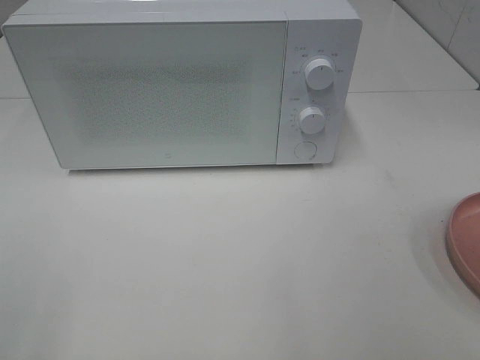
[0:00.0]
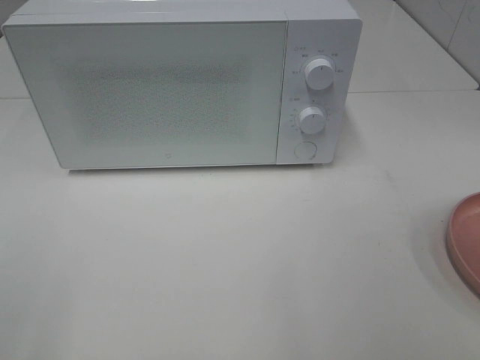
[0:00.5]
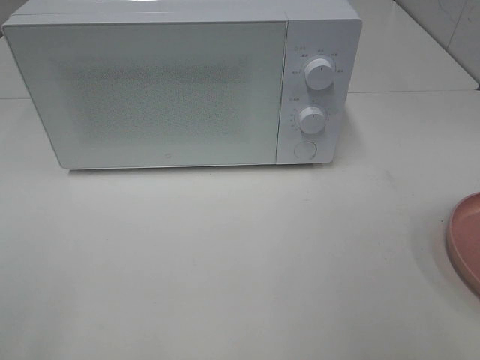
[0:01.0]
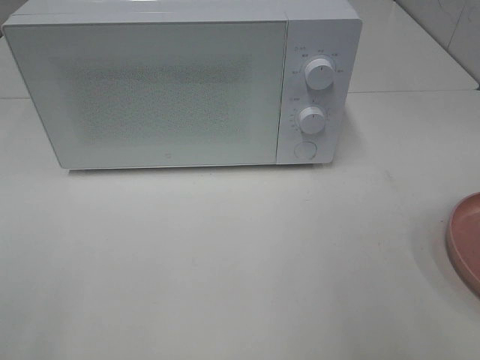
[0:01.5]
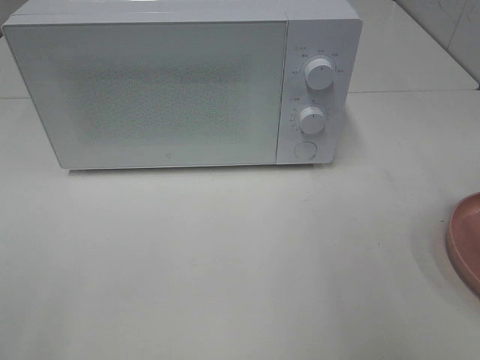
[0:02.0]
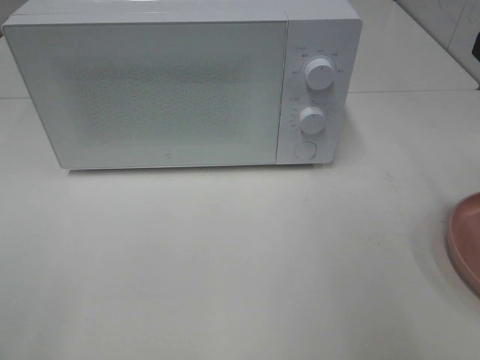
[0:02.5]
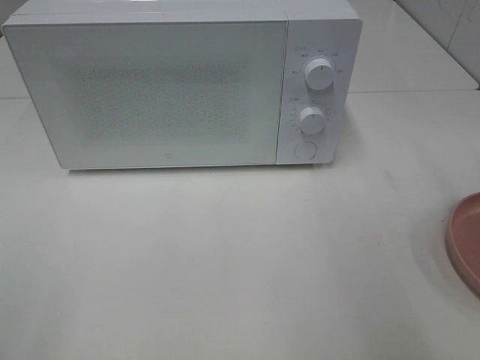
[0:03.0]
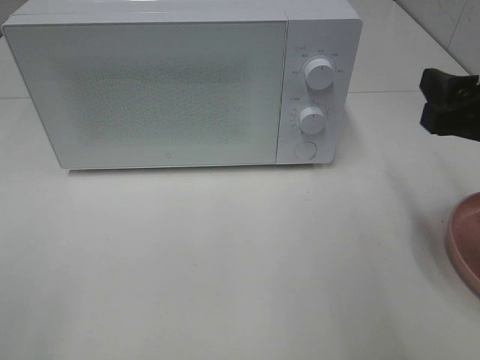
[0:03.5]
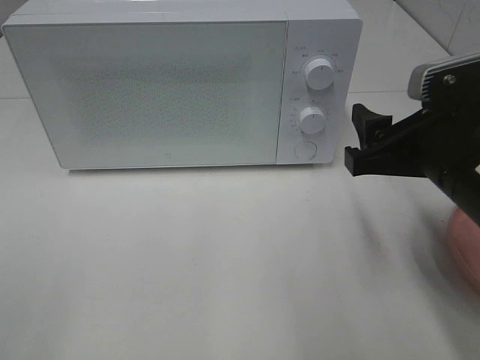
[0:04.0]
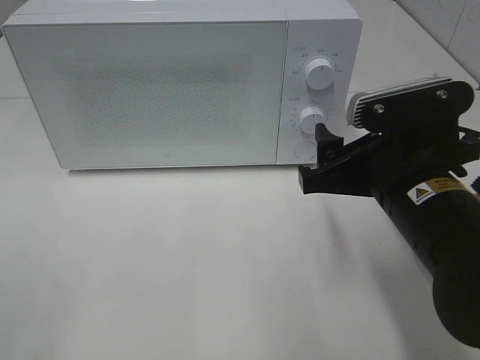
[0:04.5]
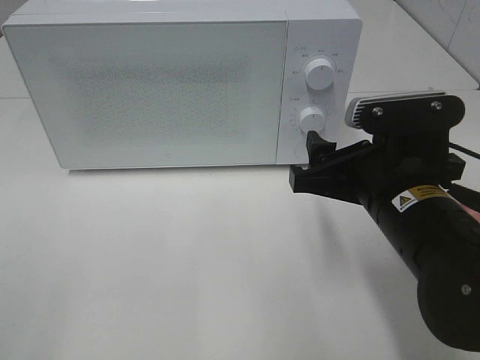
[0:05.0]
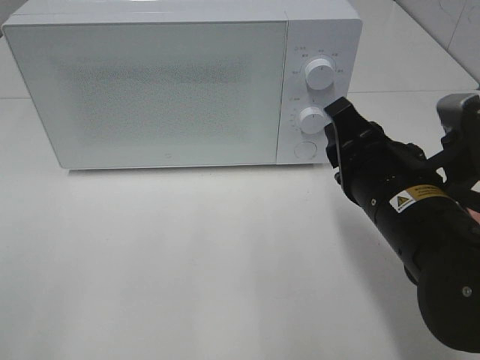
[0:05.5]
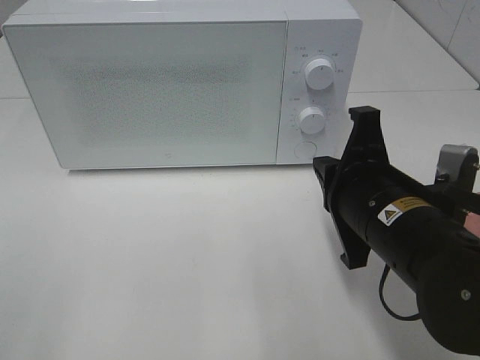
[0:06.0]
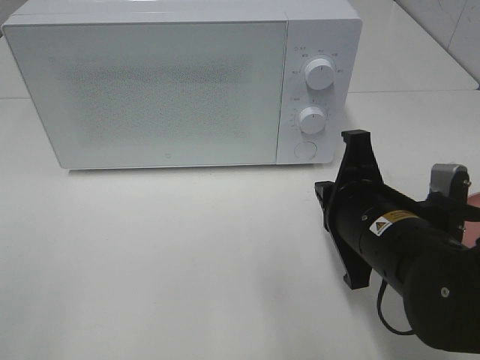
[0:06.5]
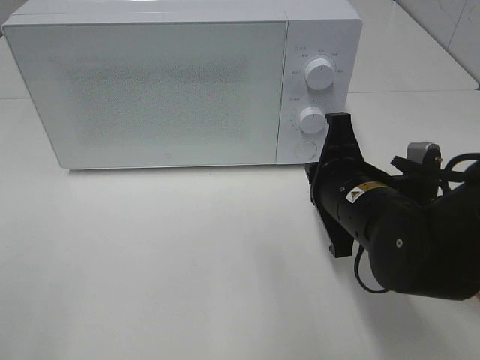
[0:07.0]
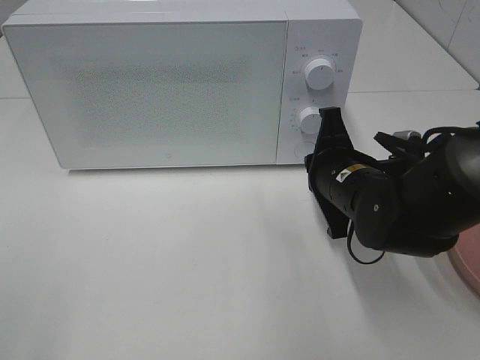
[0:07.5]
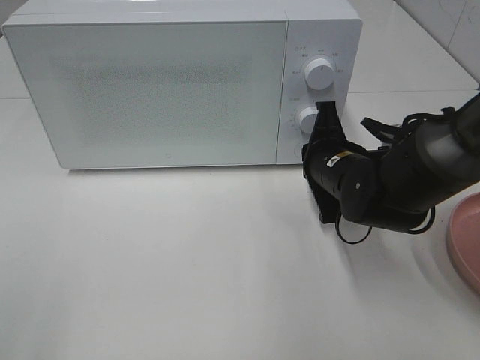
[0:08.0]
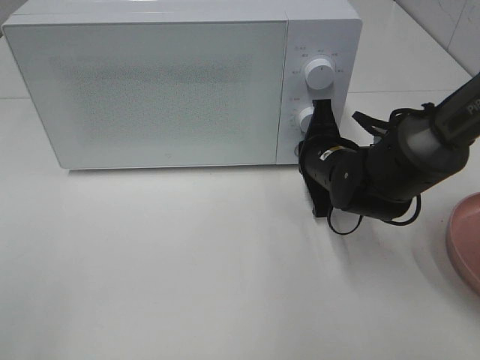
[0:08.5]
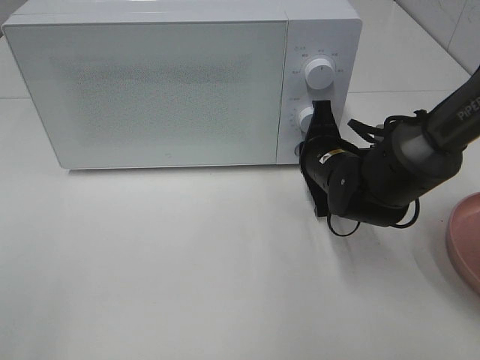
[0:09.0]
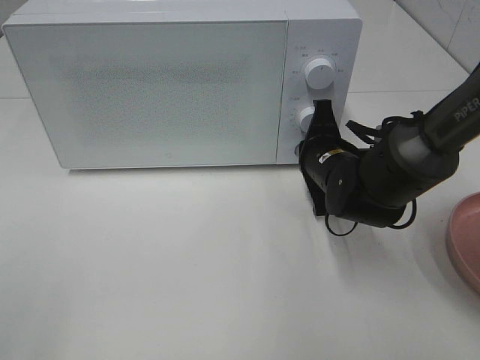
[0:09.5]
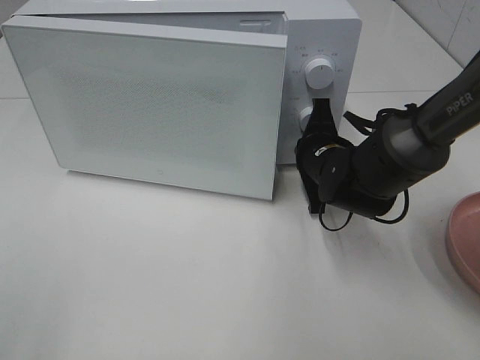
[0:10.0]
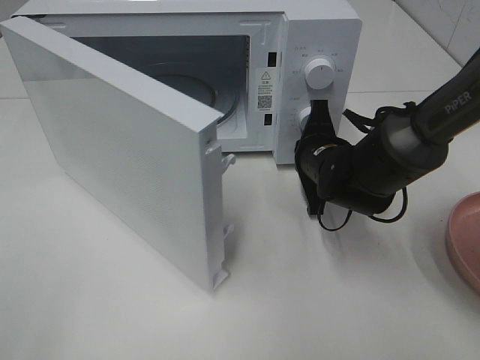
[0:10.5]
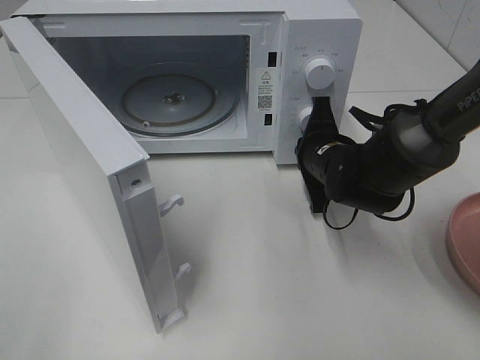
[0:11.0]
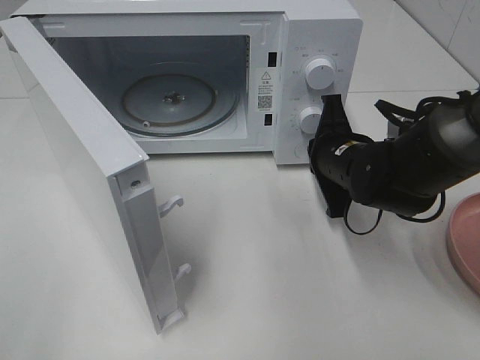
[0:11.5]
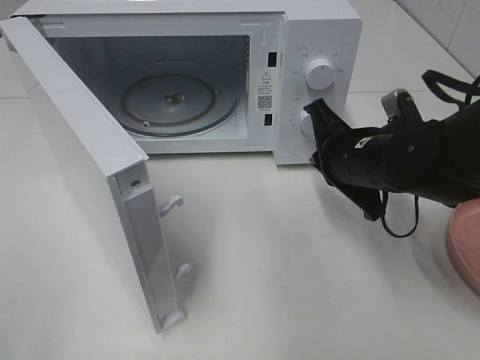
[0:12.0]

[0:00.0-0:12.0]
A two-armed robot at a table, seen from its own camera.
Task of the whole recording: Heat the burger.
Step, 0:00.0 to 0:11.0: Right hand: press the switch.
0:02.0 to 0:04.0: The right gripper goes roughly 15 cm downward and to the left.
0:04.0 to 0:06.0: The right gripper is displaced to the left by roughly 5 cm, and closes.
0:06.0 to 0:08.0: The right gripper shifts roughly 15 cm forward and downward.
0:08.0 to 0:10.0: The grippers stay close to where they were, moving slightly.
0:10.0 to 0:12.0: The right gripper moves backward, roughly 5 cm.

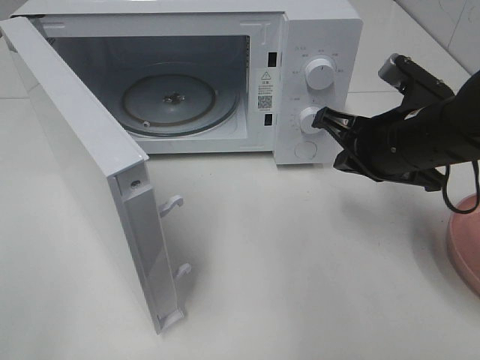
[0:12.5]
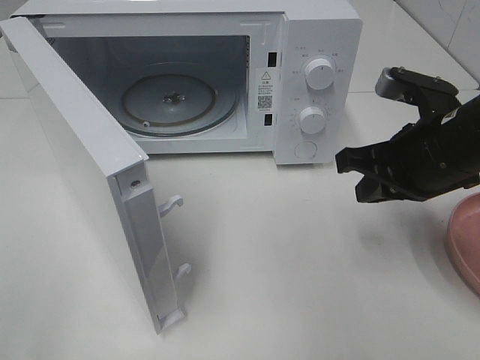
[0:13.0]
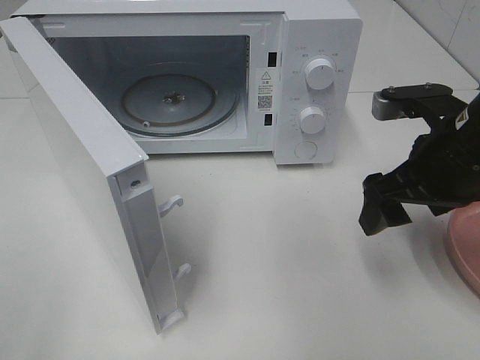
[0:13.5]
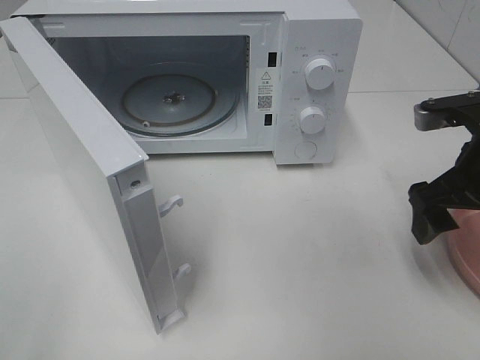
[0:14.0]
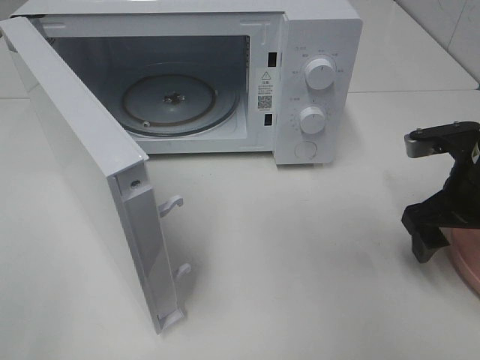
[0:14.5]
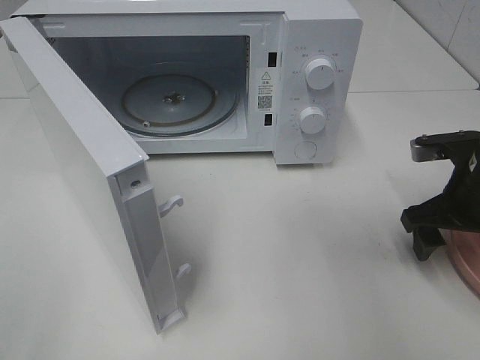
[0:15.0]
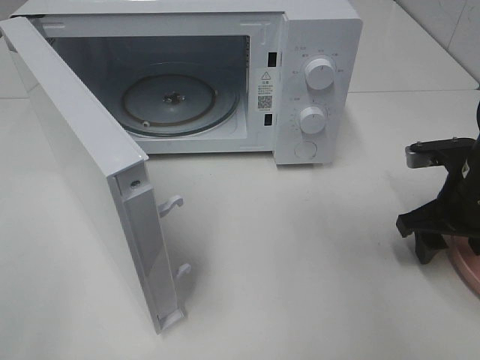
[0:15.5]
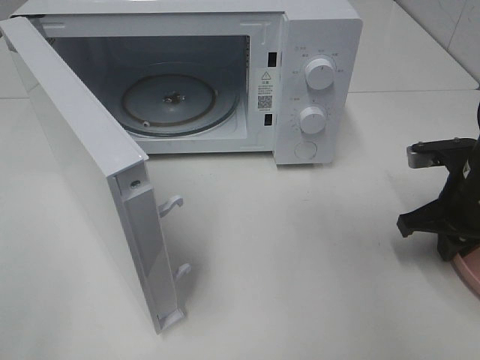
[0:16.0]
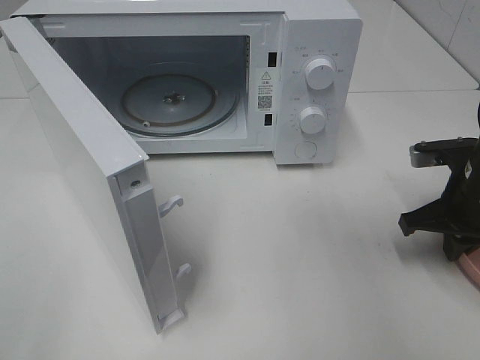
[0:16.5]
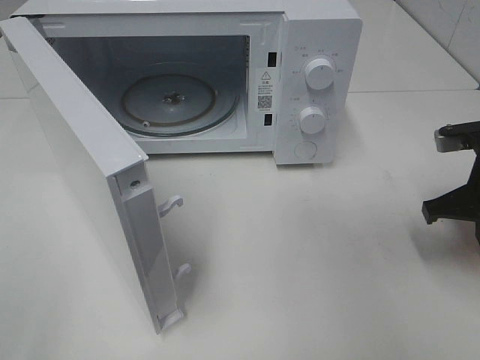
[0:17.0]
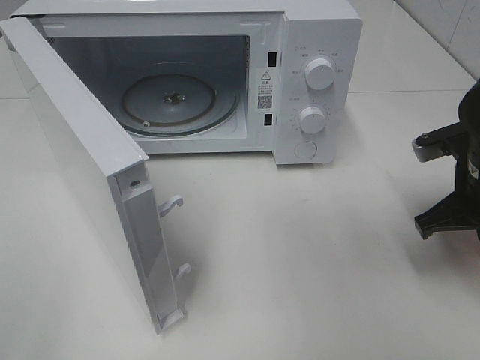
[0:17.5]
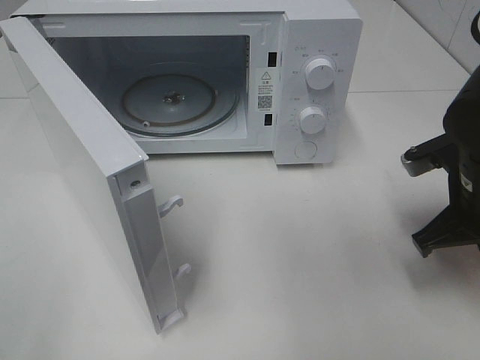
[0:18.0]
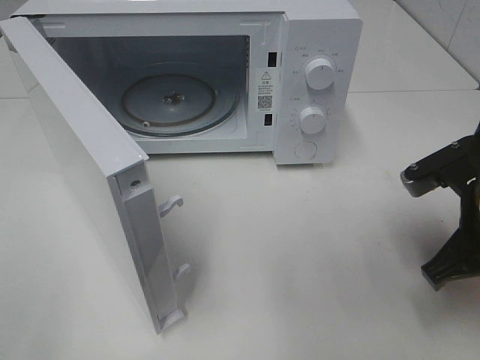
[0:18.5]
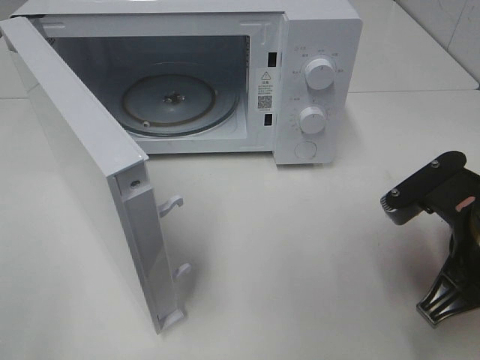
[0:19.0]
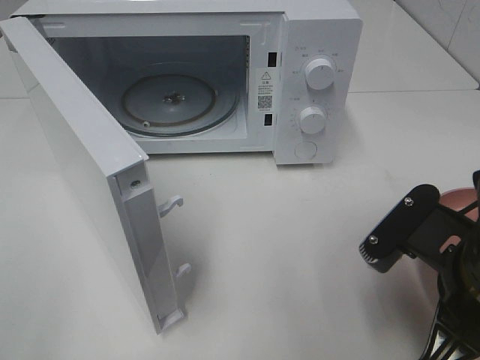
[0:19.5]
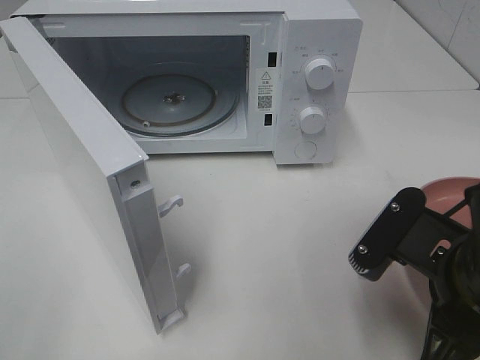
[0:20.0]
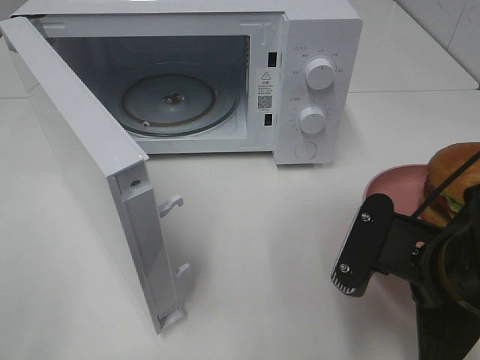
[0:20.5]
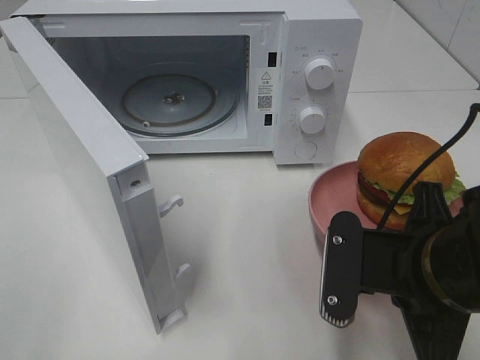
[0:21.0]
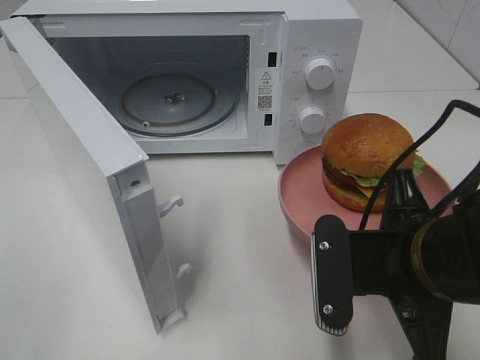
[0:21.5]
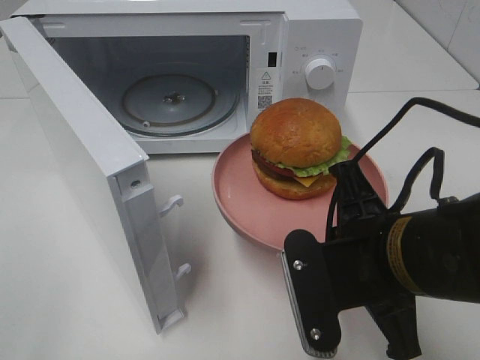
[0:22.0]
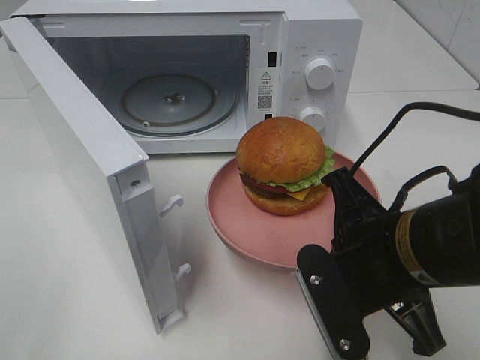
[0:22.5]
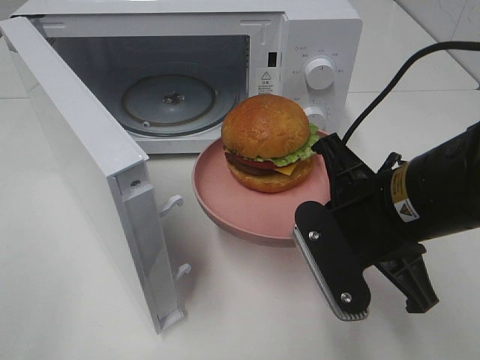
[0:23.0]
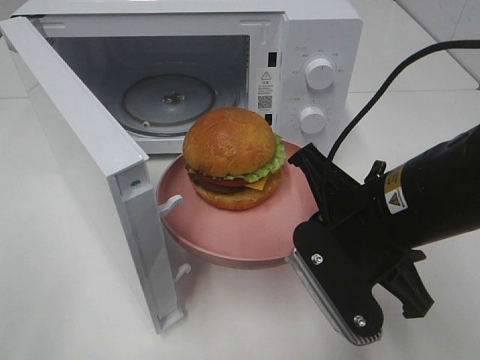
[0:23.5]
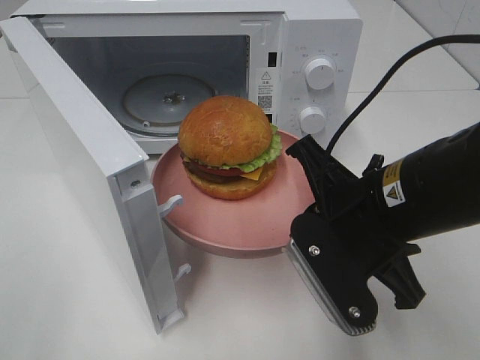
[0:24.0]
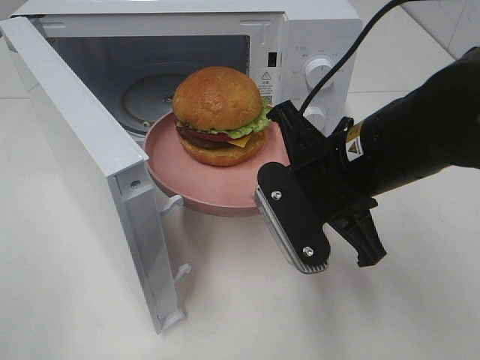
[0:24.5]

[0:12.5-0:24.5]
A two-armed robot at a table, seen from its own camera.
Task of the whole recording: Heat the burger.
Step, 0:12.5 to 0:16.5: Right hand: grab the plate with the hamburger.
0:12.5 to 0:14.5: The right gripper heads to the right, covering roughly 5 cm, and opens its fingers.
0:14.5 to 0:16.5: The right gripper closes its fingers.
0:16.5 to 0:18.5: The right gripper moves backward and to the left, about 10 cm.
0:18.5 to 0:20.5: The right gripper is displaced backward and to the left by approximately 10 cm.
0:22.5 to 0:24.5: The right gripper travels forward by roughly 5 cm.

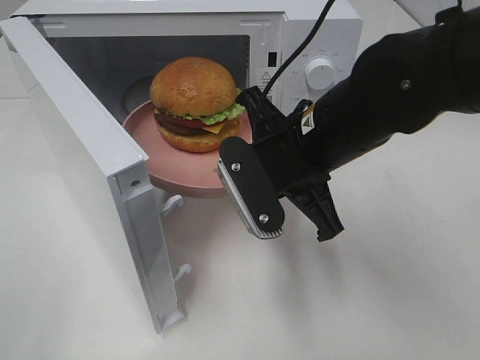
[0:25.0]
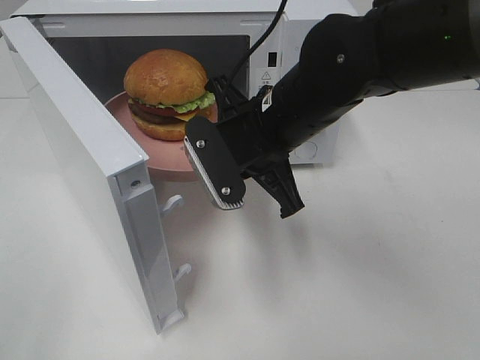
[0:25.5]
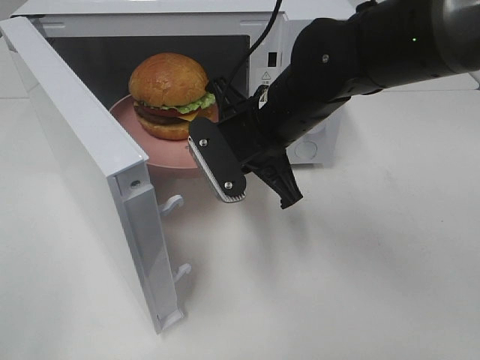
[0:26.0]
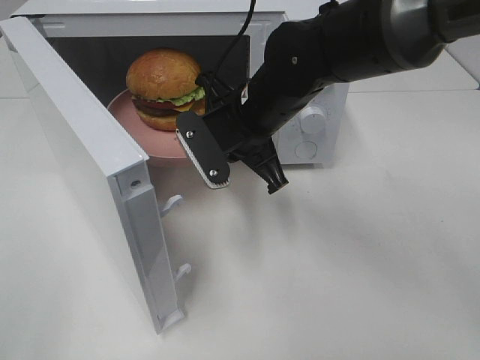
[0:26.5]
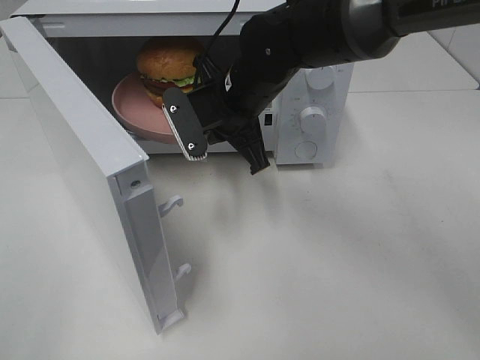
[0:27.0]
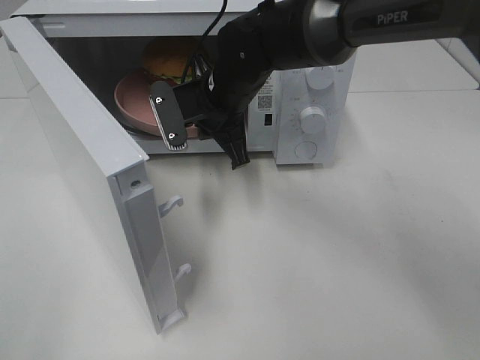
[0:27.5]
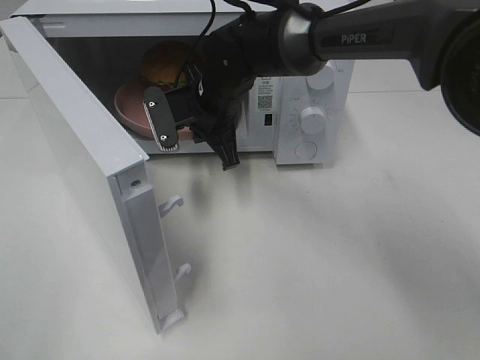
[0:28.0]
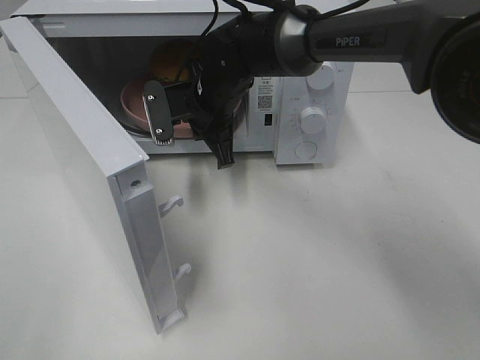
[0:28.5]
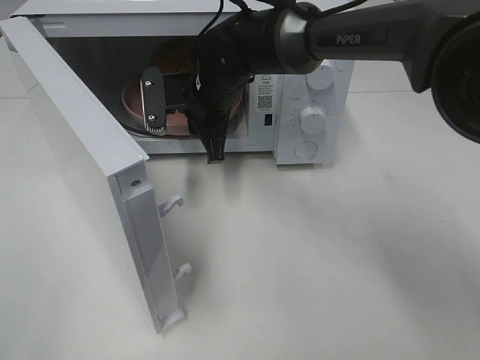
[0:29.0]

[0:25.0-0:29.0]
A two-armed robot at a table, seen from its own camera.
Task of the whole recording: Heat the burger.
Step, 0:25.0 to 0:28.5: Right hand: place the plate in the microwave.
0:25.0 to 0:27.0: The right gripper heads forward and to the left, covering about 15 cm.
0:27.0 to 0:29.0: The right gripper shifts by roughly 5 cm.
